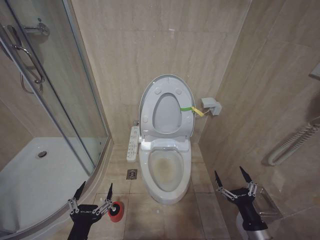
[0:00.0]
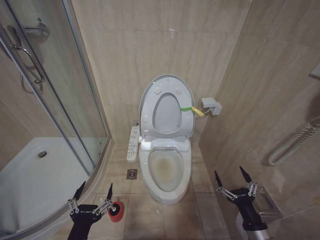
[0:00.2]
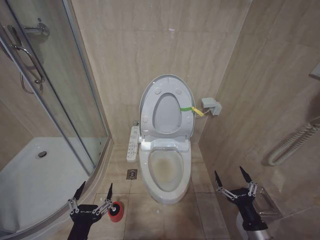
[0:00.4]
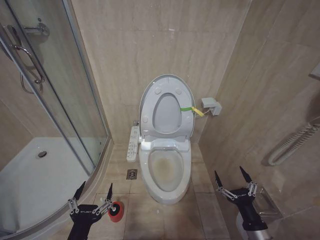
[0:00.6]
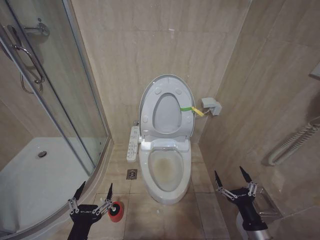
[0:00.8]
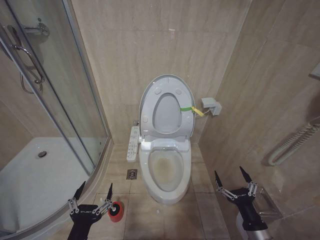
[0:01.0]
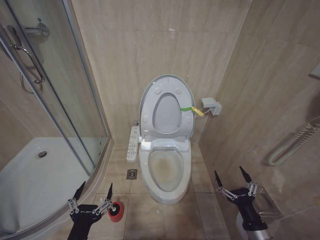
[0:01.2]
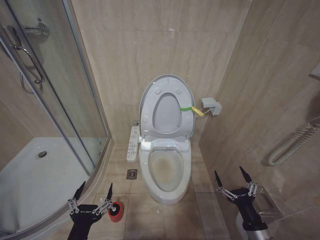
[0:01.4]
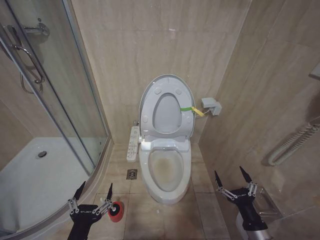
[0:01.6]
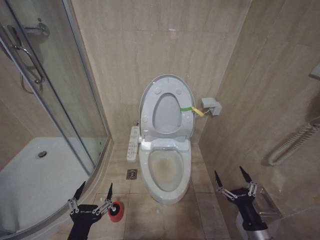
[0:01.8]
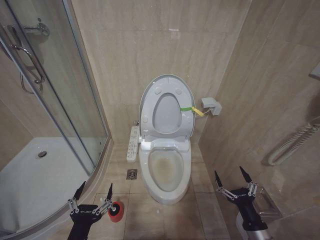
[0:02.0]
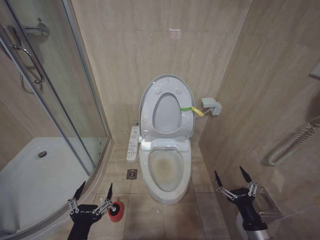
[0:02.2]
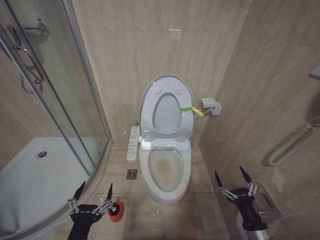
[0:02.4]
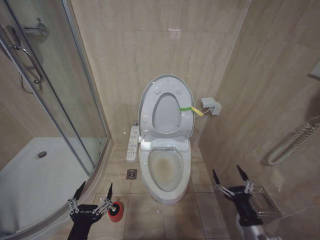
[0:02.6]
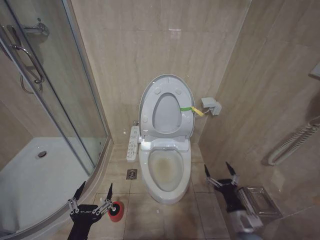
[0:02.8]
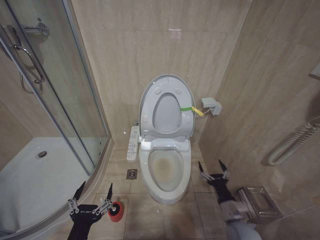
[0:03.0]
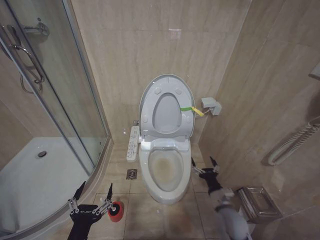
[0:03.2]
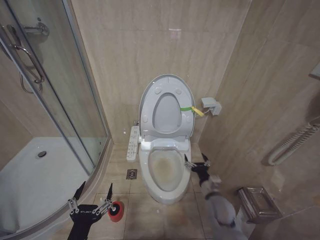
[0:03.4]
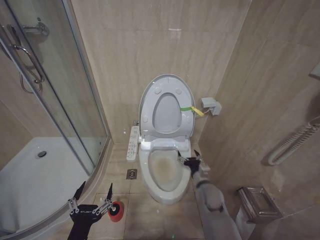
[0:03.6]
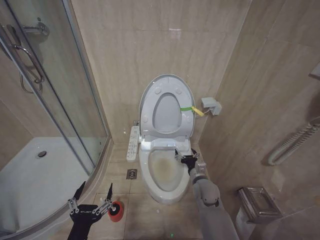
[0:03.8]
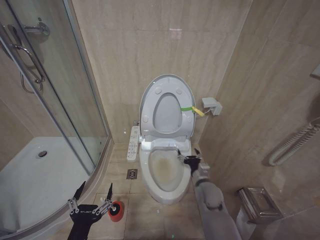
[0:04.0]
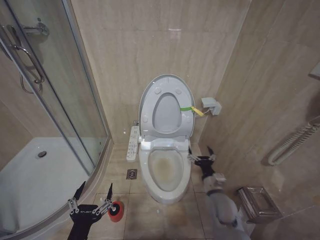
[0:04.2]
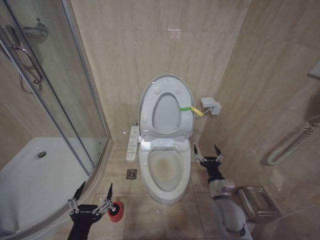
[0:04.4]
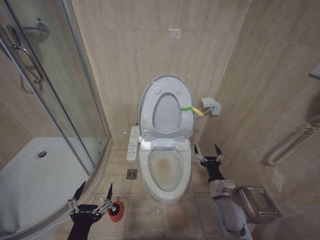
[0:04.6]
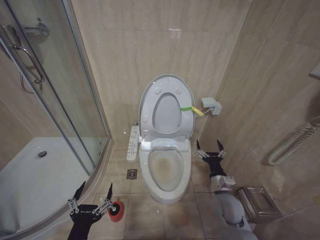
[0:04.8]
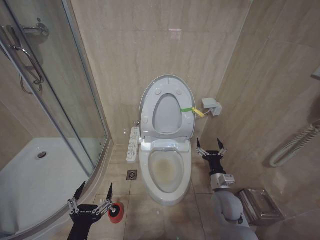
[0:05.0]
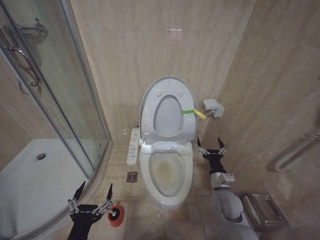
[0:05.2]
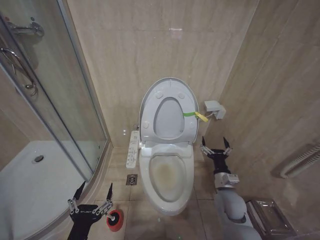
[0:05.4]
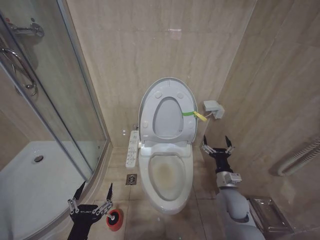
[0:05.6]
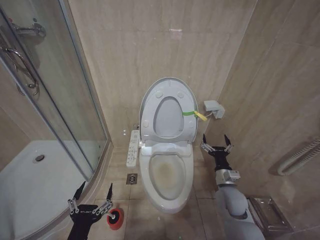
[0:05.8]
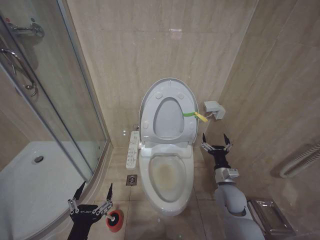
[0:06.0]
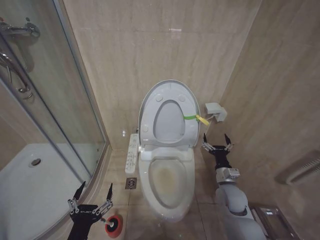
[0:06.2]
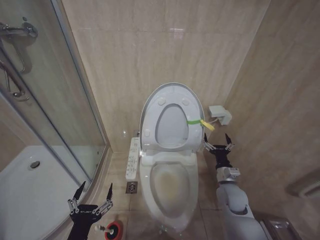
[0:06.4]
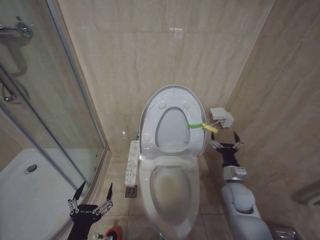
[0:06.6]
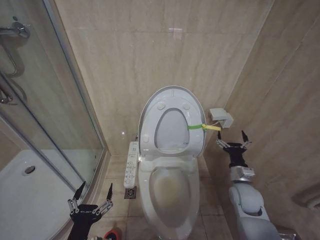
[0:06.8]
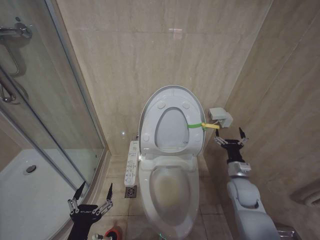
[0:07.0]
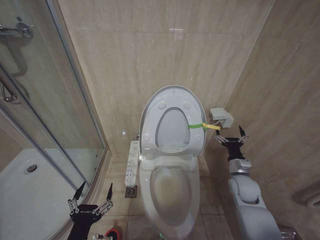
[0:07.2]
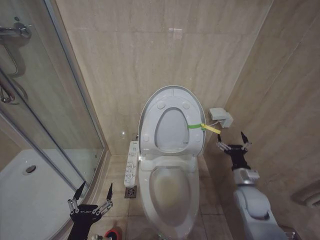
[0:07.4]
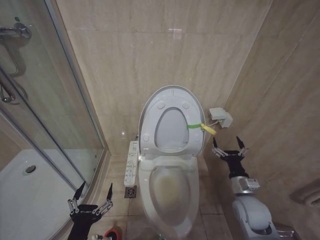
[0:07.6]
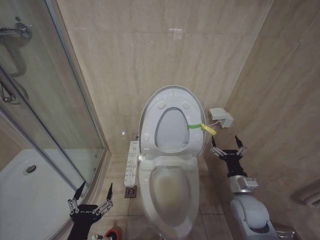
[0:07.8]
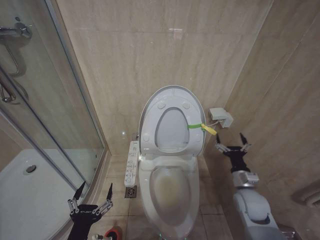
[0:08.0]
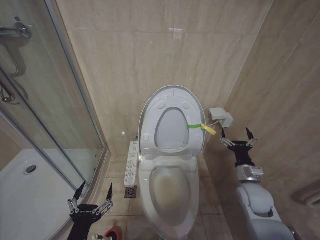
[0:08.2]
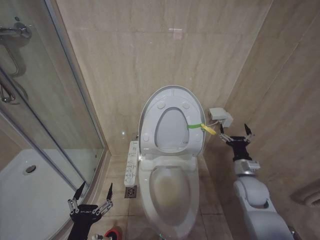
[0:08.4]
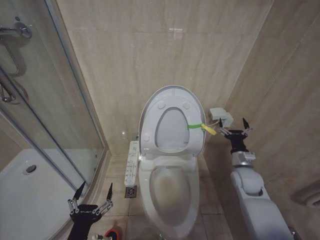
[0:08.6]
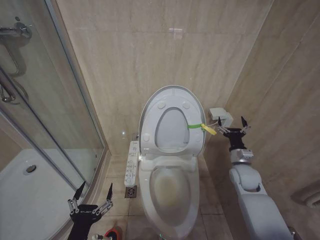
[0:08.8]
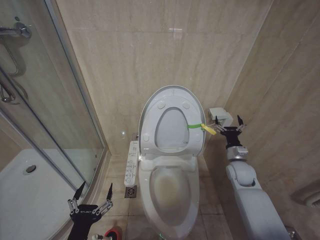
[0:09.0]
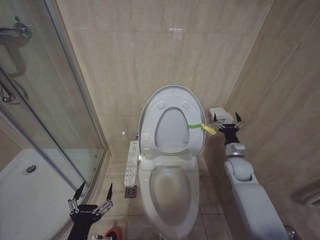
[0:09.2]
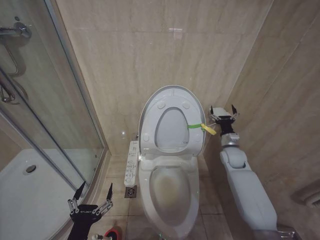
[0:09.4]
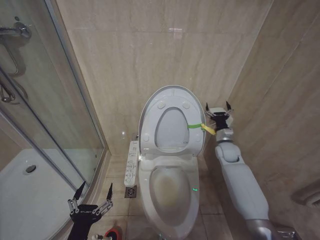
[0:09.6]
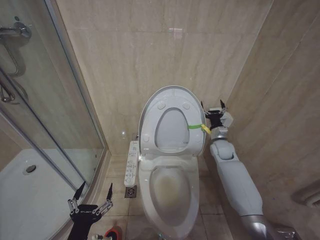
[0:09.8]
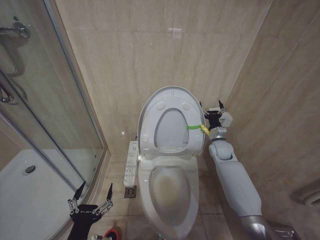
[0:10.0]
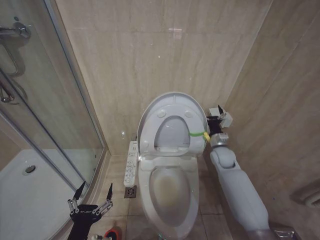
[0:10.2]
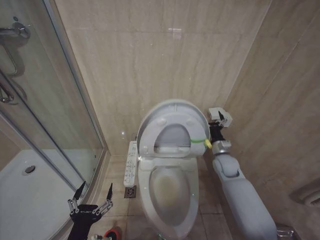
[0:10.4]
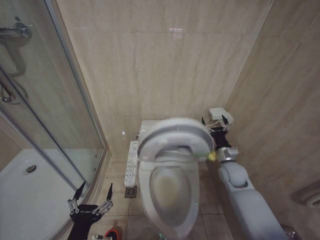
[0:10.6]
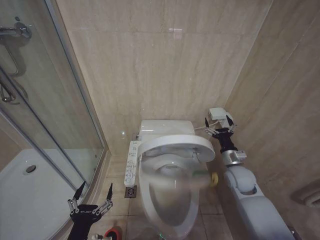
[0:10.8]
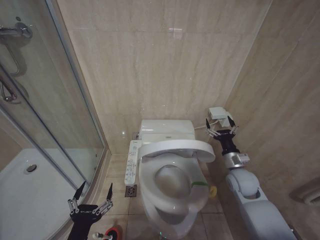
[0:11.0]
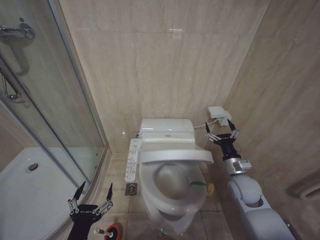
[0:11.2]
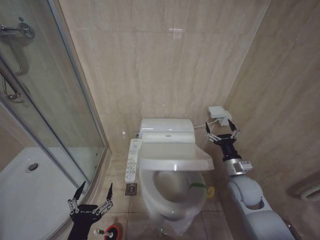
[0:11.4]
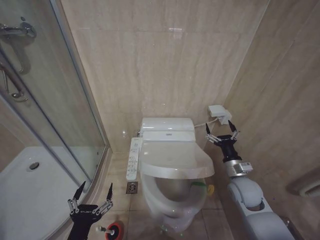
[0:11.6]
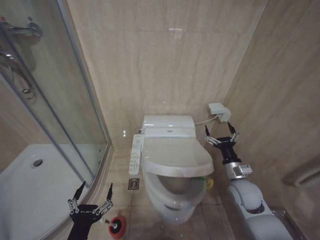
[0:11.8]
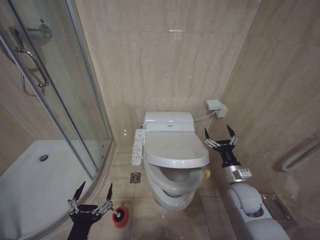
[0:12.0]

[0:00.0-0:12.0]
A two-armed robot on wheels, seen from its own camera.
Task of the whole recording: Open the toilet lid, clean the toilet bowl with a toilet brush, close the toilet lid, and flush.
0:00.0 to 0:01.6: Both grippers stay put.
0:01.6 to 0:03.0: The right gripper shifts approximately 5 cm forward.
0:03.0 to 0:04.4: The right gripper travels forward by roughly 5 cm.
0:04.4 to 0:06.0: The right gripper shifts by about 5 cm.
0:06.0 to 0:07.6: The right gripper changes place by roughly 5 cm.
0:07.6 to 0:09.0: The right gripper heads forward, covering roughly 10 cm.
0:10.4 to 0:12.0: The right gripper is displaced backward by about 15 cm.

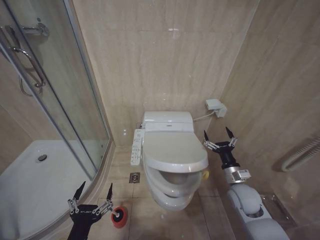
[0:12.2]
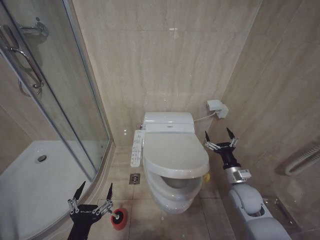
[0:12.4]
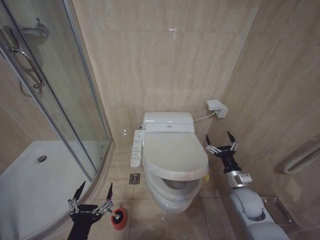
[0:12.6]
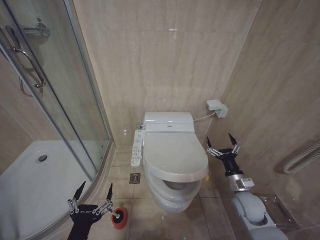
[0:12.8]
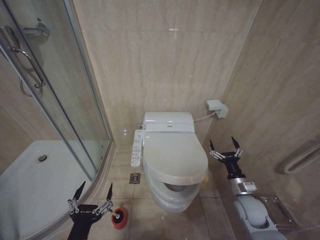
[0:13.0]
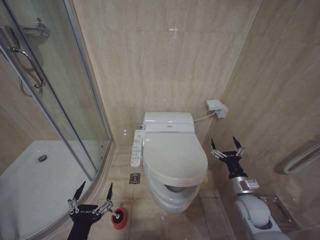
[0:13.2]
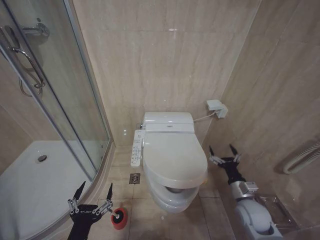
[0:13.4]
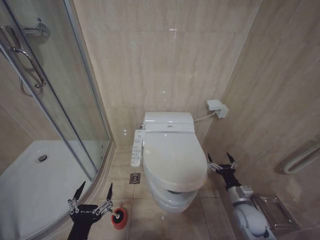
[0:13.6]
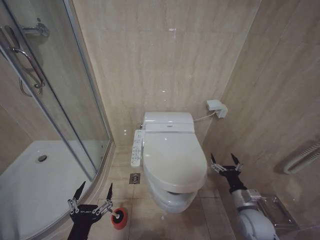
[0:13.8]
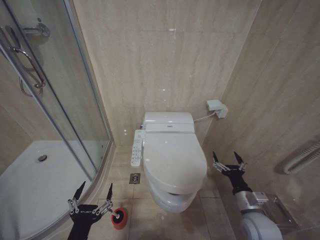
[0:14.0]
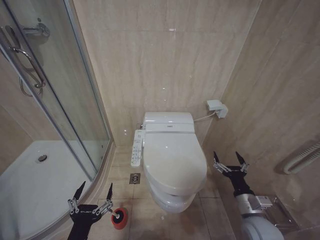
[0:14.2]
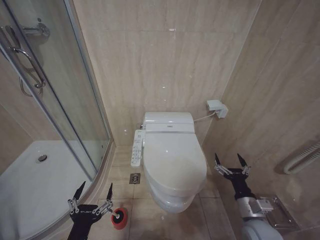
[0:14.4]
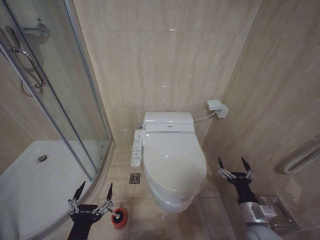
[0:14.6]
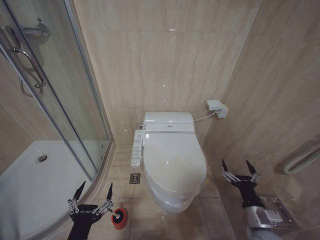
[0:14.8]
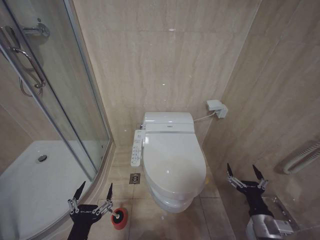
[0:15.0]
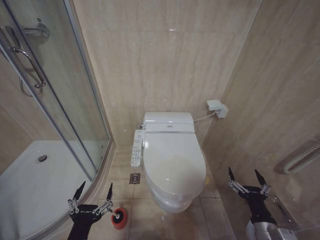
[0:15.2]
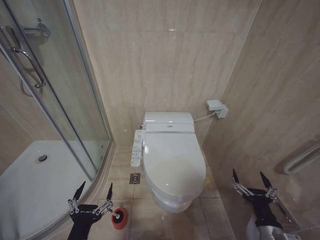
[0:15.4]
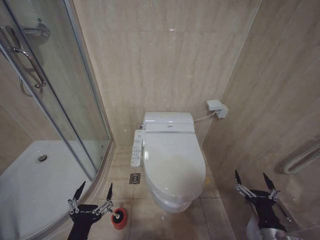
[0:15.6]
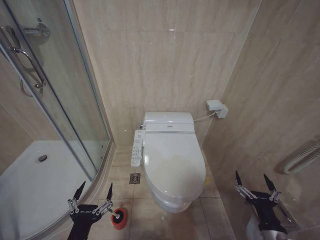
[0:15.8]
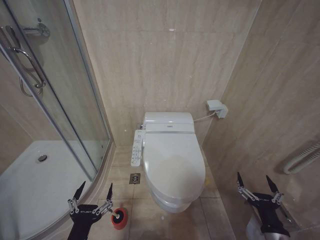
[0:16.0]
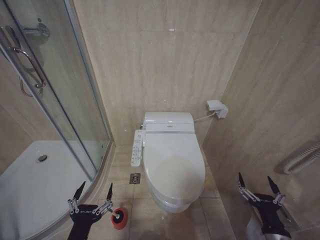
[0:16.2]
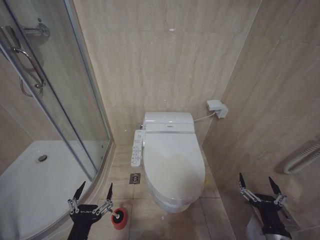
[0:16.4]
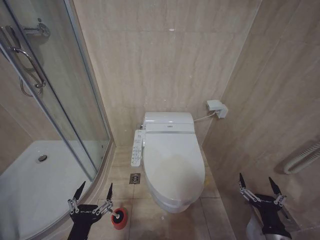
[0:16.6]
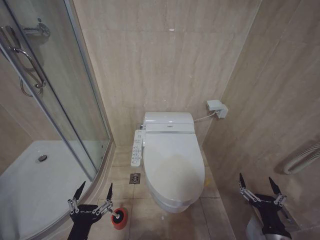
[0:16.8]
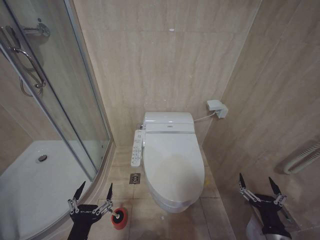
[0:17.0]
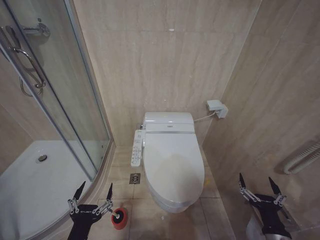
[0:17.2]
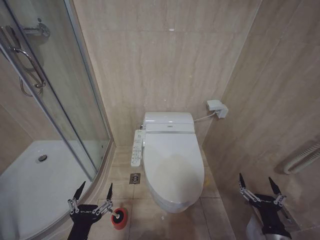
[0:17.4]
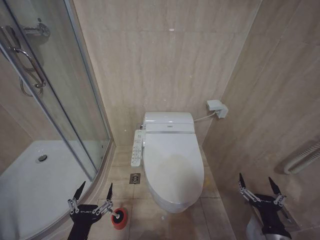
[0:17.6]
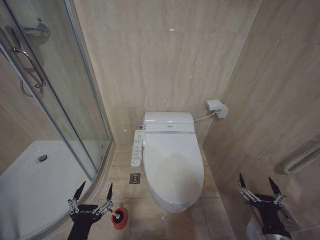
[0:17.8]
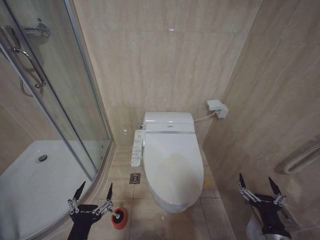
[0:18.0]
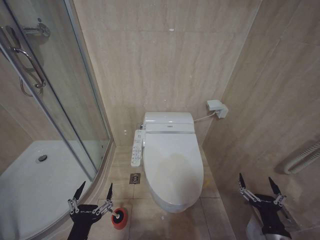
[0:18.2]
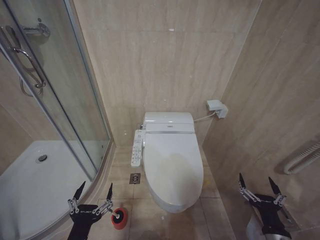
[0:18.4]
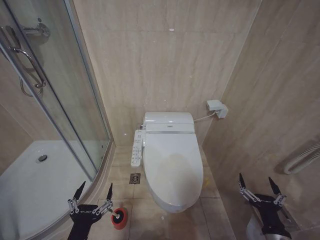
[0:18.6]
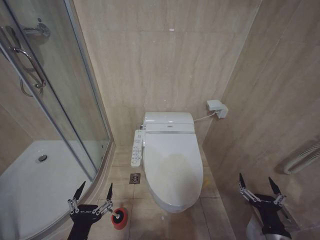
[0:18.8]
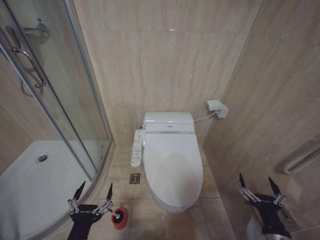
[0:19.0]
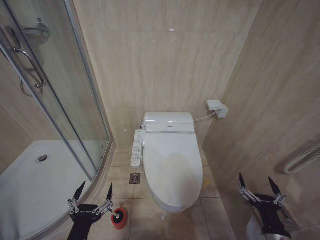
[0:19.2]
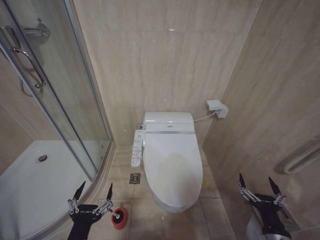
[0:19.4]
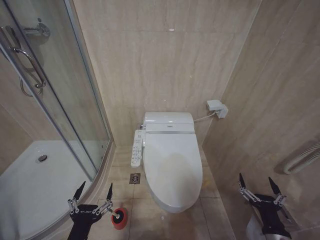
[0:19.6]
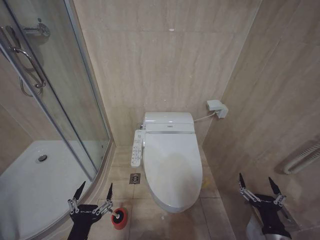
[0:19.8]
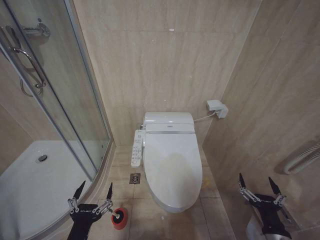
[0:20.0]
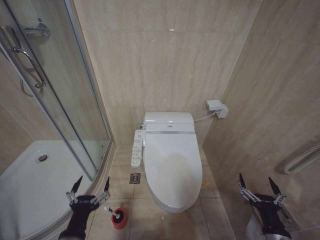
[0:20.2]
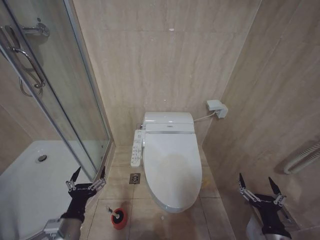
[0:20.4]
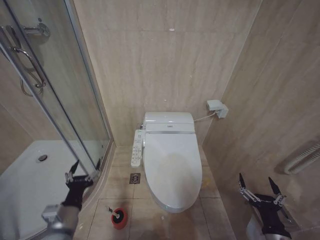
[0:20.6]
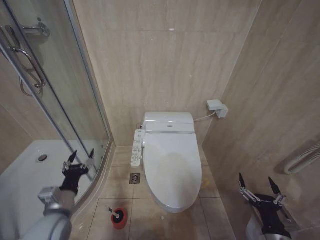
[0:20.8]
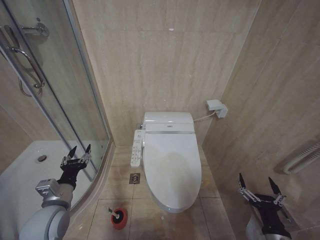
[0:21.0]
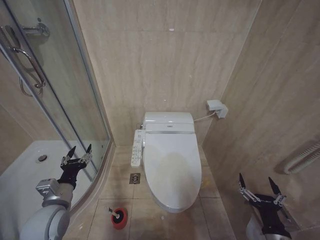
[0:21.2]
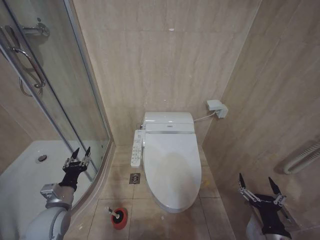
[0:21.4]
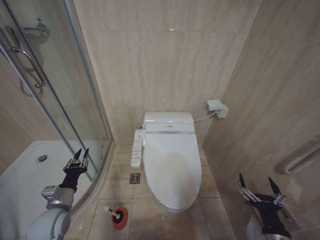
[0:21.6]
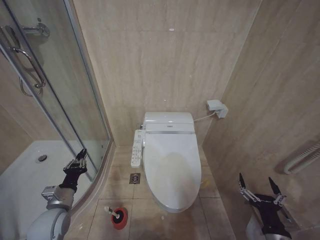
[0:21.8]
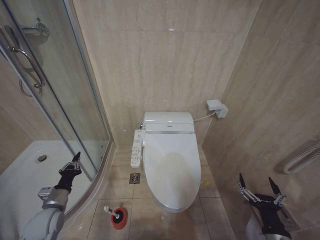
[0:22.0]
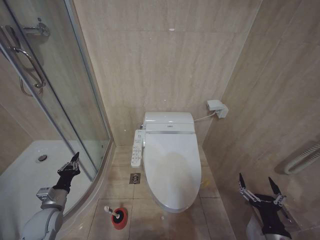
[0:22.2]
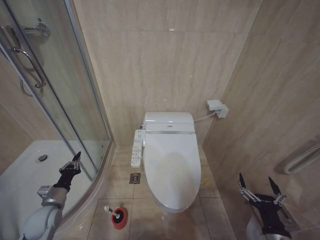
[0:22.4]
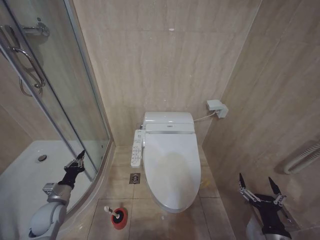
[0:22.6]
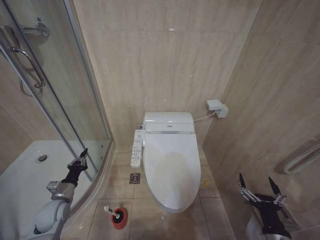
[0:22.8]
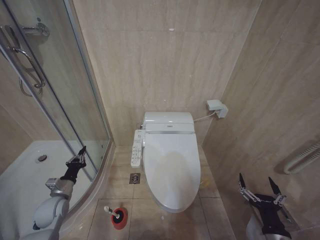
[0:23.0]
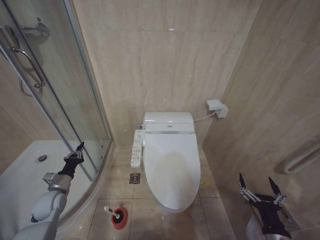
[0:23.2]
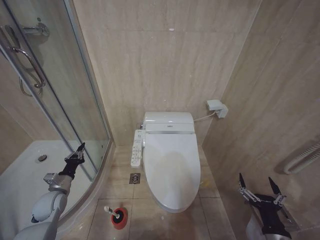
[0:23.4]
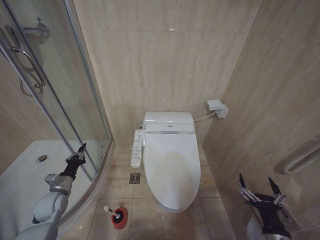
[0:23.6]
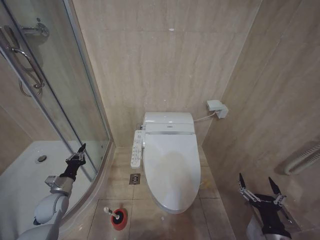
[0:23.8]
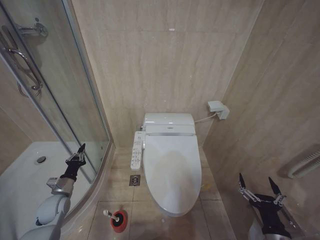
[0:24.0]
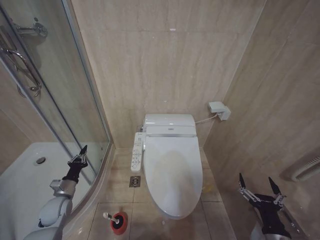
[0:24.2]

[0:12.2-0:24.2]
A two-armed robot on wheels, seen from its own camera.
Task of the whole recording: Open the toilet lid, clean the toilet bowl with a toilet brush, close the toilet lid, and flush.
0:12.2 to 0:13.8: The right gripper moves downward and backward, some 10 cm.
0:13.8 to 0:15.2: The right gripper goes approximately 10 cm backward.
0:15.2 to 0:16.6: The grippers stay close to where they were, moving slightly.
0:16.6 to 0:19.8: Both grippers stay put.
0:19.8 to 0:21.2: The left gripper shifts some 15 cm forward and to the left, and closes its fingers.
0:21.2 to 0:22.6: The left gripper is displaced downward, to the left and forward by approximately 15 cm, and closes.
0:22.6 to 0:24.2: The grippers move only a little.
